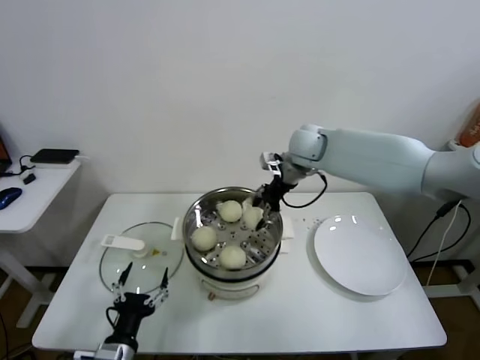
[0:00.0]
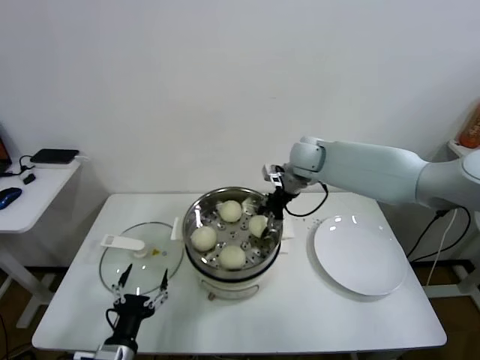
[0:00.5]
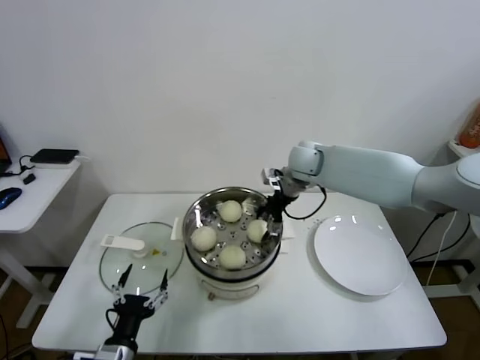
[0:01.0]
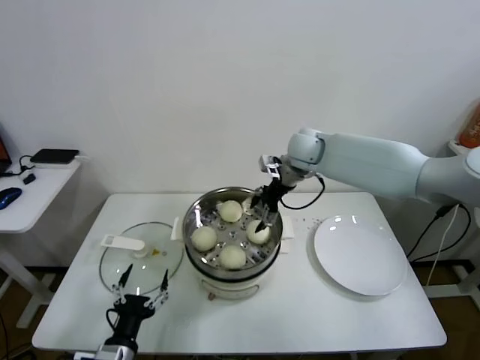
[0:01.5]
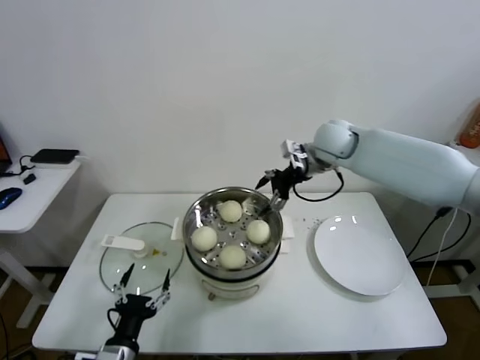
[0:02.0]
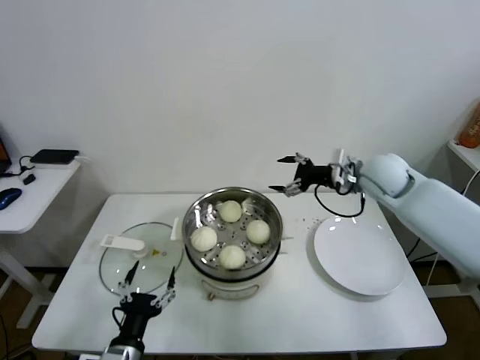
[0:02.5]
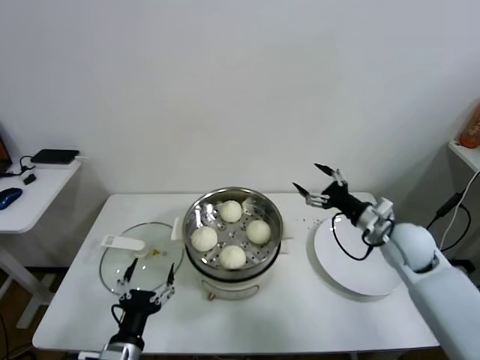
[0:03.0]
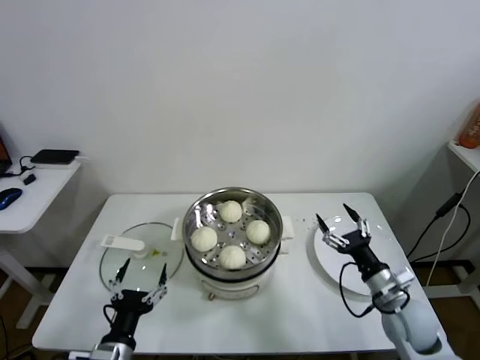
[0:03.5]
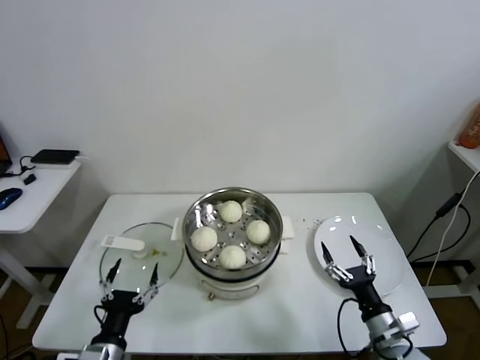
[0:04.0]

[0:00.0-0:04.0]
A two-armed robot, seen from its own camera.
Task of the whole recording: take steamed baozi put them in steamer.
0:00.0 to 0:02.0: The right gripper opens its fingers.
0:02.0 to 0:04.0: The right gripper shifts roughly 50 cm backward and downward.
